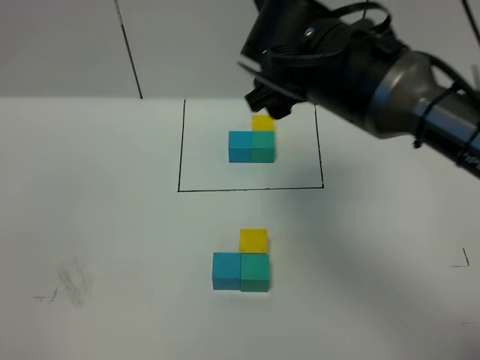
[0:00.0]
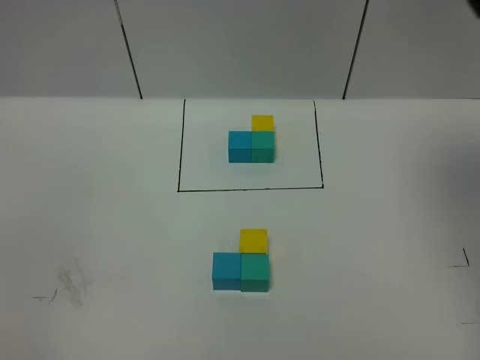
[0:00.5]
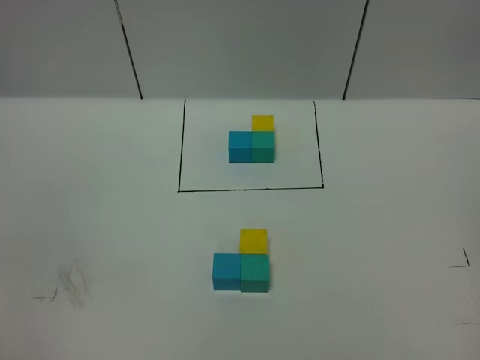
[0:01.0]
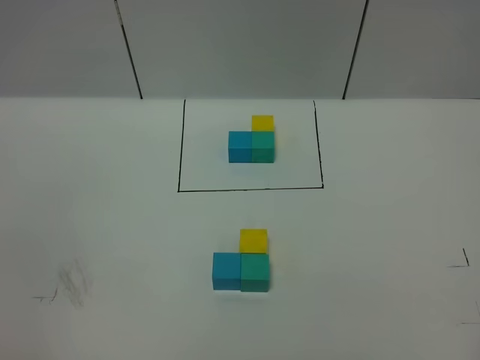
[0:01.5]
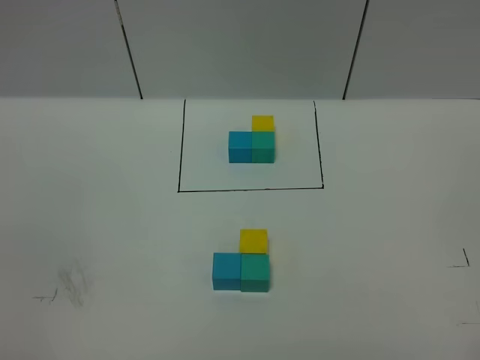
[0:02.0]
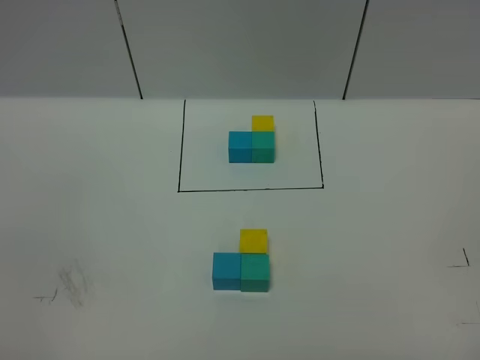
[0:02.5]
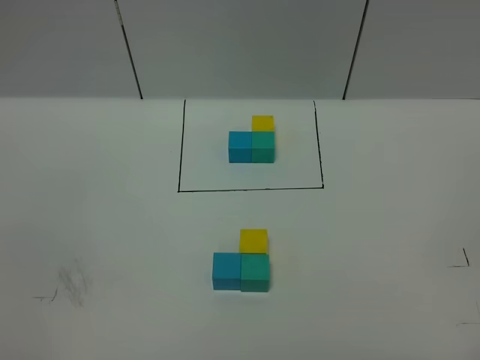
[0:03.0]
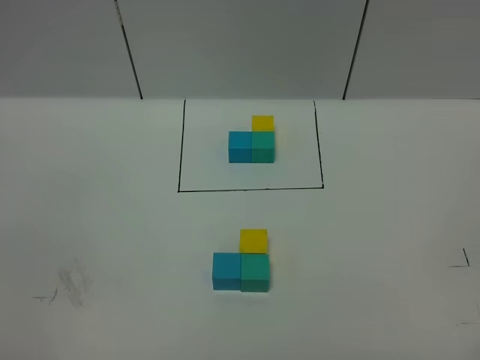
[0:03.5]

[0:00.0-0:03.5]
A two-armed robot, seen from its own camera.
Task of the whole recording: According to the building block template in front, assemble the scattered blocks together.
0:00.0 to 0:02.0: The right gripper travels backward and to the right by roughly 40 cm, and closes.
